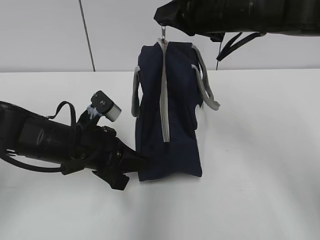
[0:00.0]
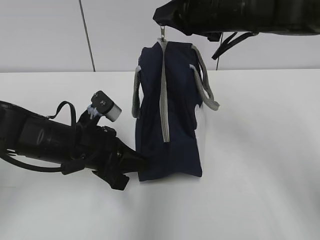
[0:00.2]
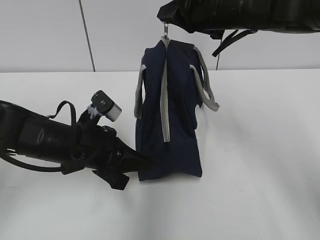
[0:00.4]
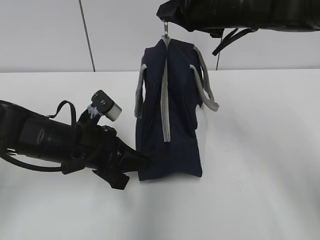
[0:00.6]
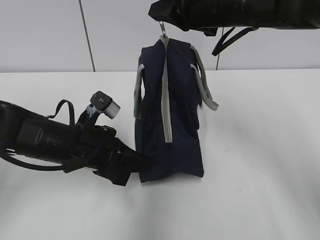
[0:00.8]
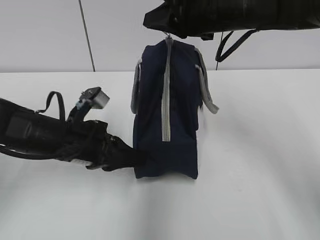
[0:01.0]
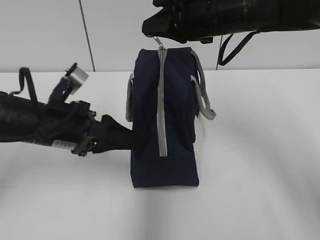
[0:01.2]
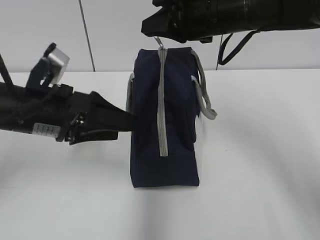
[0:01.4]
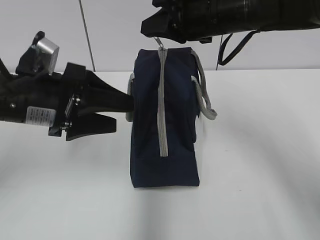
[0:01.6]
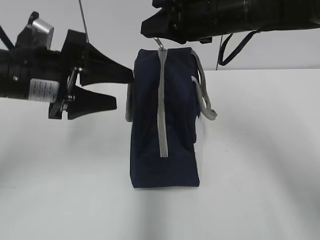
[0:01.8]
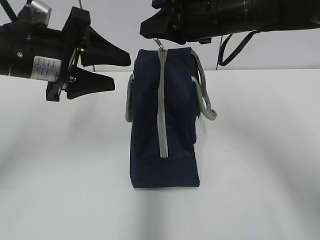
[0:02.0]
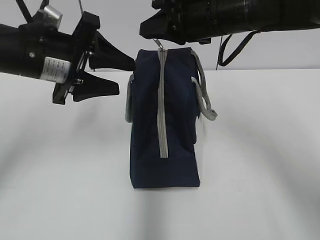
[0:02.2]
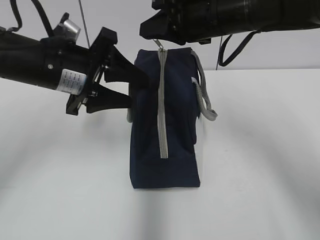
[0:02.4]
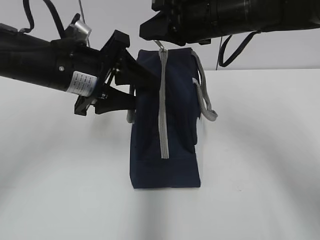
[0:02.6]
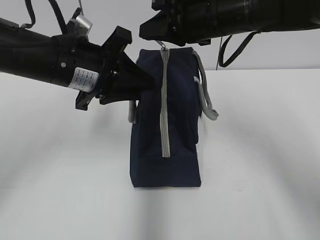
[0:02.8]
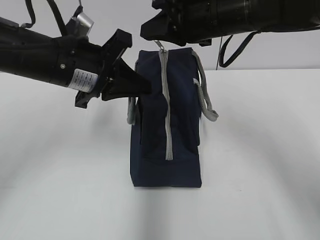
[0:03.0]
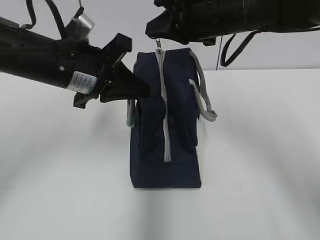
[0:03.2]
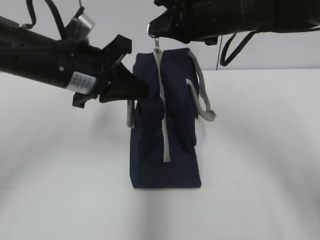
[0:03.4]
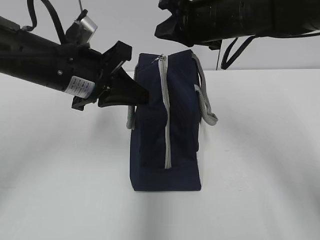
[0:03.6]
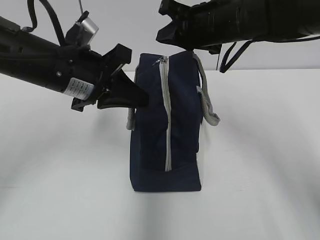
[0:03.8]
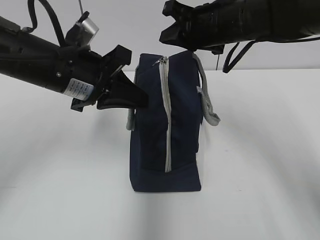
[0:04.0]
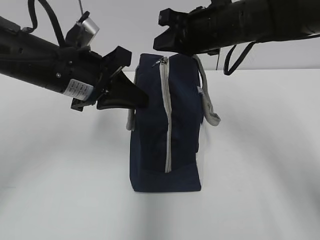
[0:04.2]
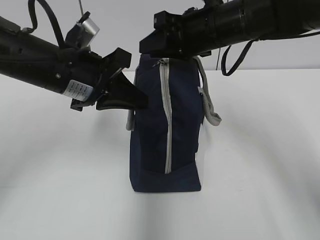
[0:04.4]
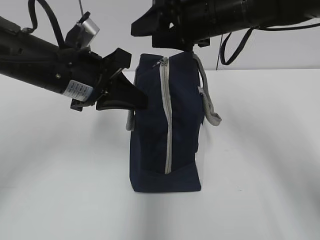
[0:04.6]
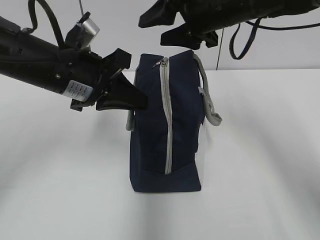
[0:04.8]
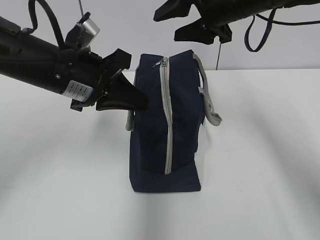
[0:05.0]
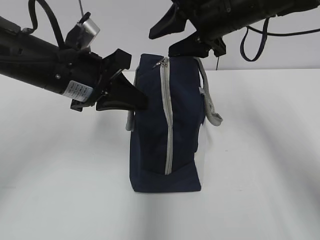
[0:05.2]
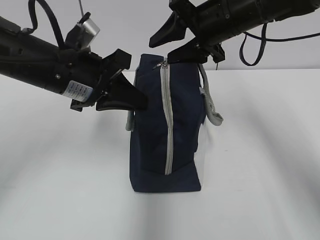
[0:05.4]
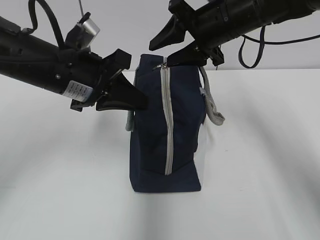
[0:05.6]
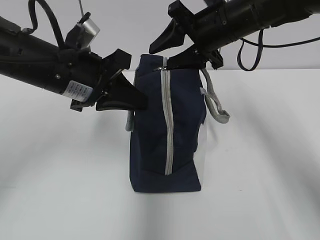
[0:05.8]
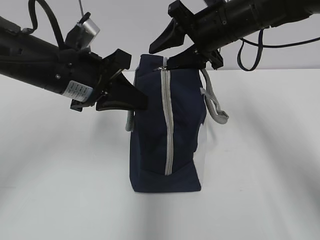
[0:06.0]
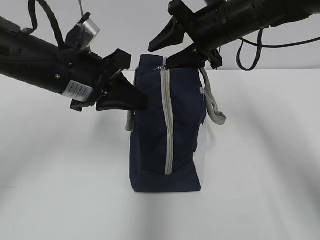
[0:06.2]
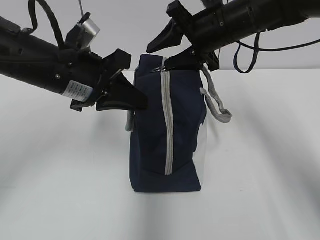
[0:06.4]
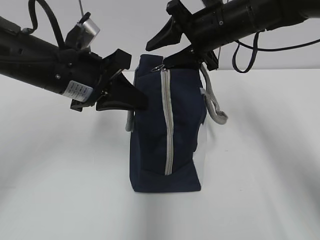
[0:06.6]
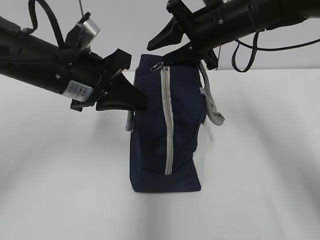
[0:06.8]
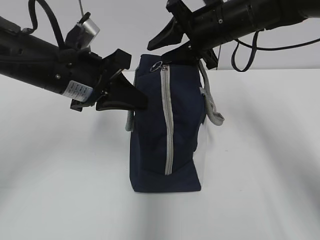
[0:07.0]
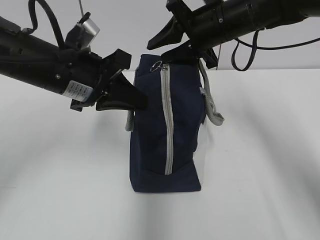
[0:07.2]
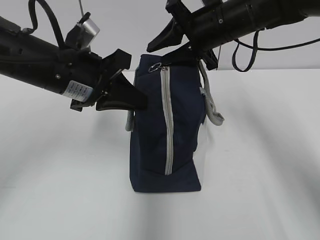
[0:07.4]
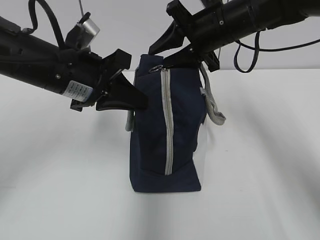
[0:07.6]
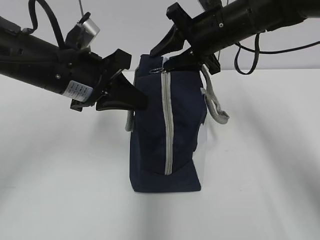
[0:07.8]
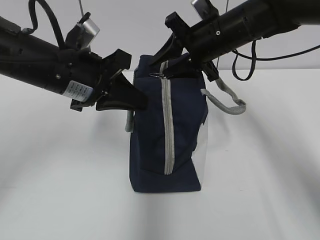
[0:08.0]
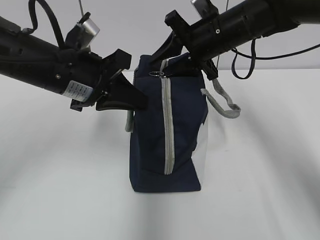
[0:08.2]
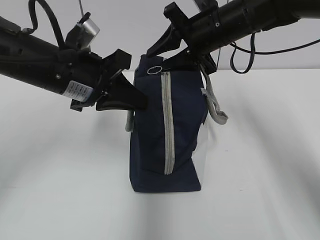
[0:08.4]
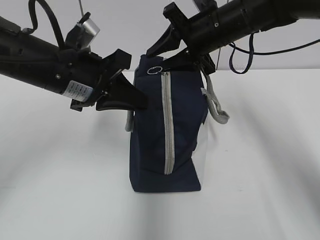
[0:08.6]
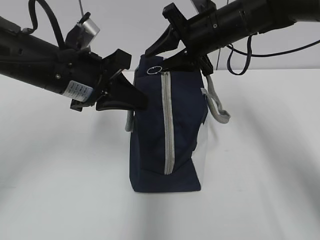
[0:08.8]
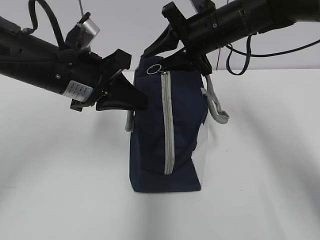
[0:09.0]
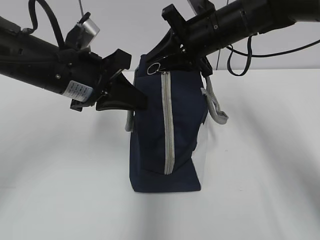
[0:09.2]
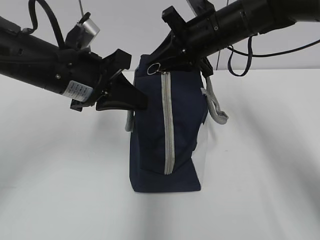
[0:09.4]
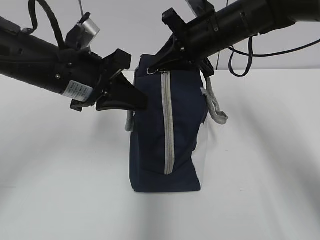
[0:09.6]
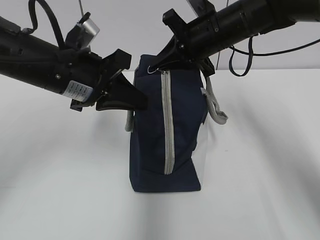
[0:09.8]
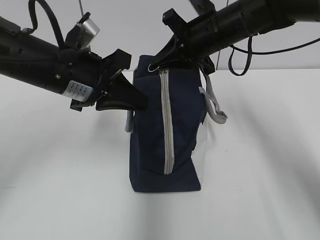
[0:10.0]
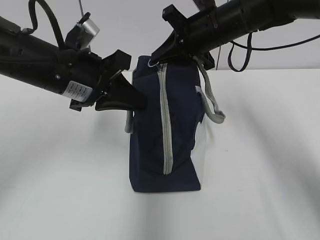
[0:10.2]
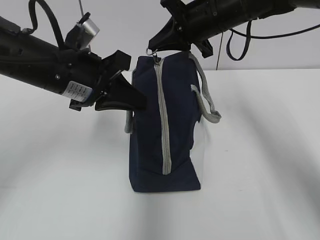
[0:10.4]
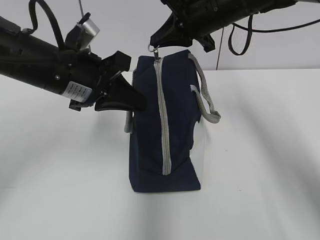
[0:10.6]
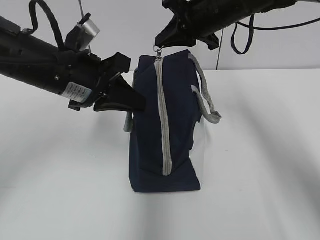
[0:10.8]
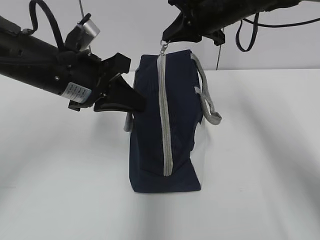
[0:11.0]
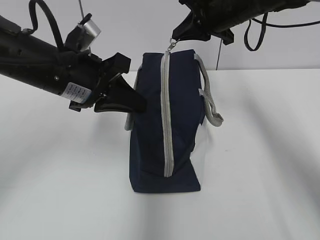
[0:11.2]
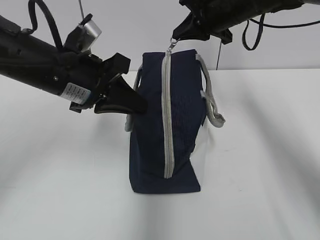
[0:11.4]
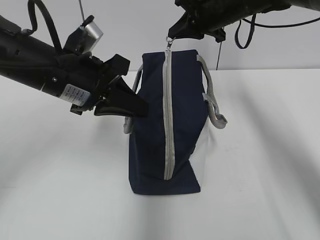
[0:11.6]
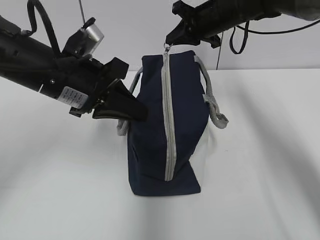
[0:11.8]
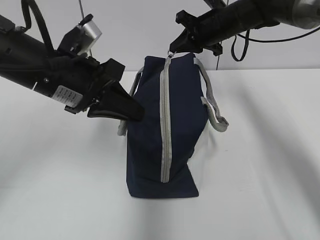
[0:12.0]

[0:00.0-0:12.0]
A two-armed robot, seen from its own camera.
Step, 0:00.0 to 0:06.6: Grab the lunch bag with your left hand.
0:00.0 to 0:01.6: The left gripper travels upward by approximately 10 cm, and opens.
0:01.6 to 0:03.0: The left gripper moves roughly 5 cm, and closes.
0:03.0 to 0:04.4: The grippers move only a little.
0:06.0 to 0:09.0: The grippers stay close to where they were, moving slightly.
0:09.0 to 0:10.4: The right gripper closes its fingers.
0:10.4 to 0:12.0: The right gripper is displaced forward by about 10 cm.

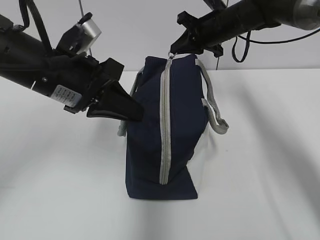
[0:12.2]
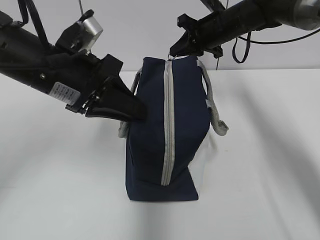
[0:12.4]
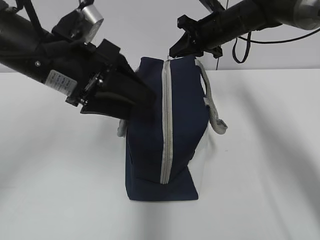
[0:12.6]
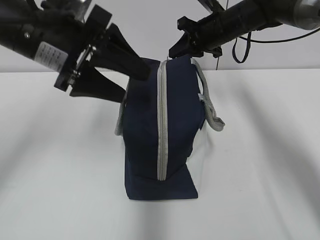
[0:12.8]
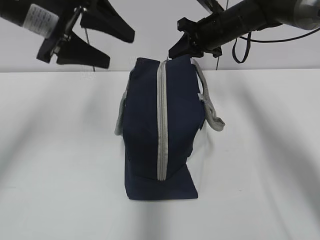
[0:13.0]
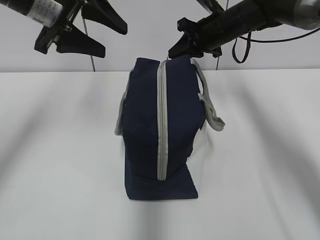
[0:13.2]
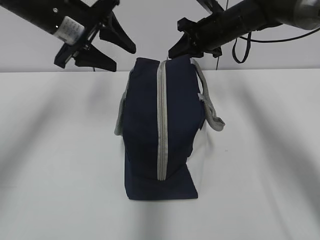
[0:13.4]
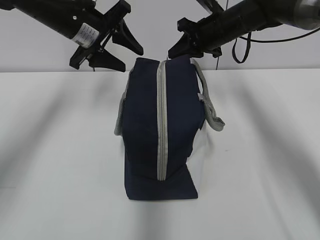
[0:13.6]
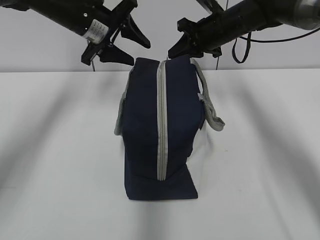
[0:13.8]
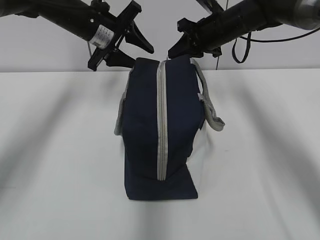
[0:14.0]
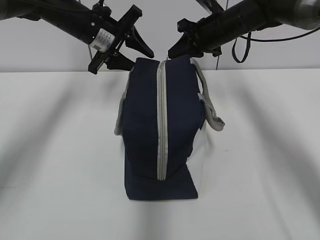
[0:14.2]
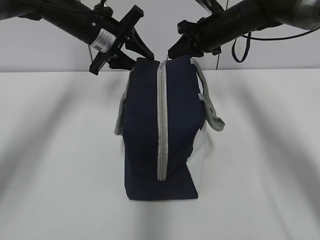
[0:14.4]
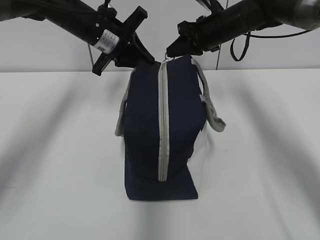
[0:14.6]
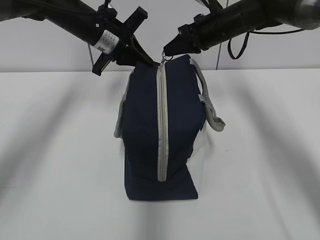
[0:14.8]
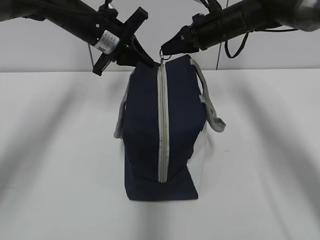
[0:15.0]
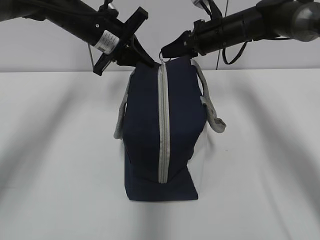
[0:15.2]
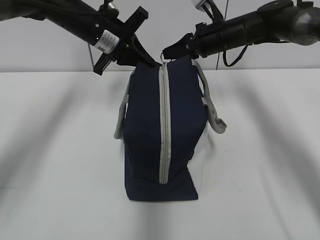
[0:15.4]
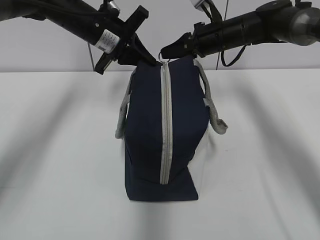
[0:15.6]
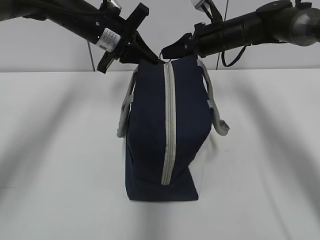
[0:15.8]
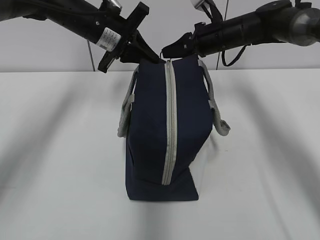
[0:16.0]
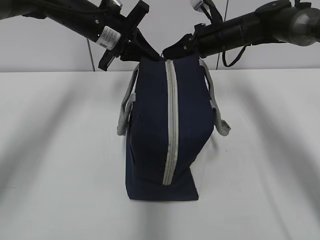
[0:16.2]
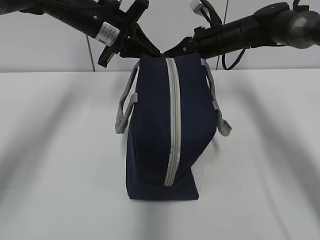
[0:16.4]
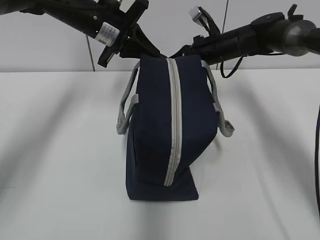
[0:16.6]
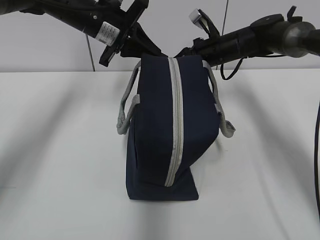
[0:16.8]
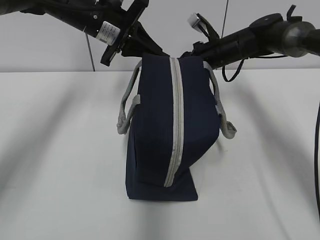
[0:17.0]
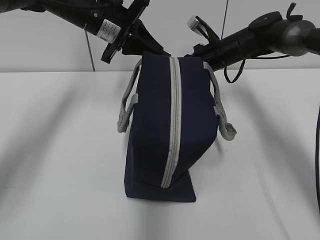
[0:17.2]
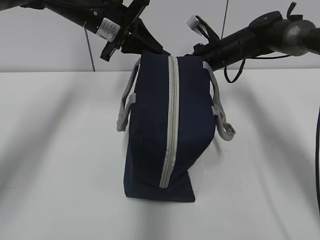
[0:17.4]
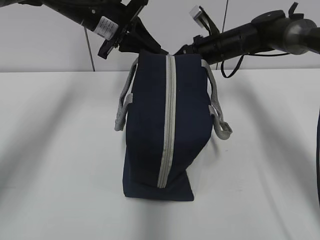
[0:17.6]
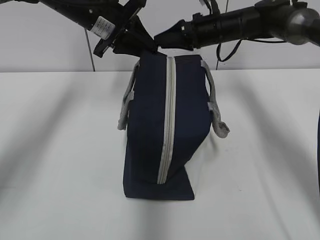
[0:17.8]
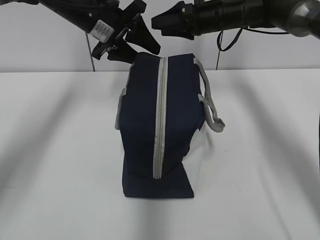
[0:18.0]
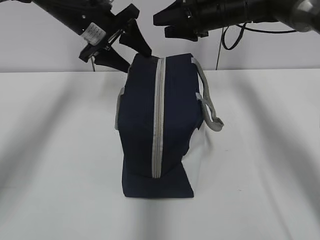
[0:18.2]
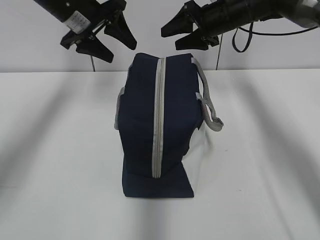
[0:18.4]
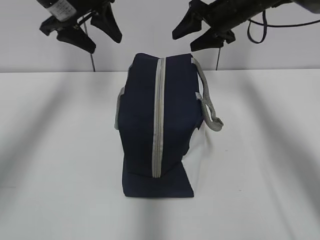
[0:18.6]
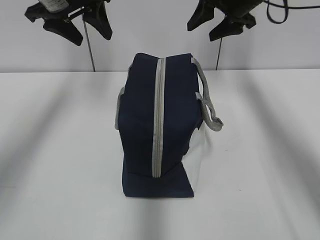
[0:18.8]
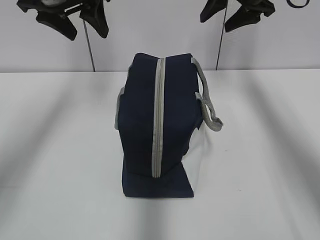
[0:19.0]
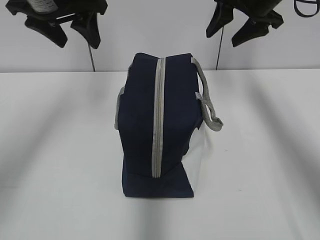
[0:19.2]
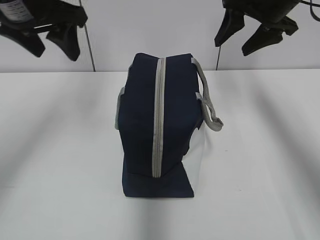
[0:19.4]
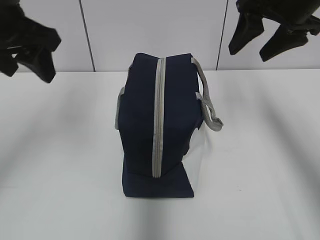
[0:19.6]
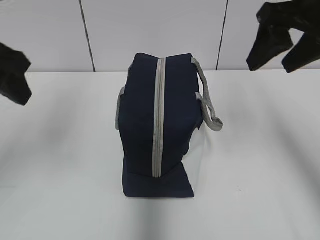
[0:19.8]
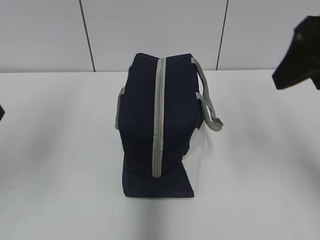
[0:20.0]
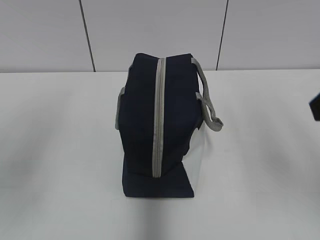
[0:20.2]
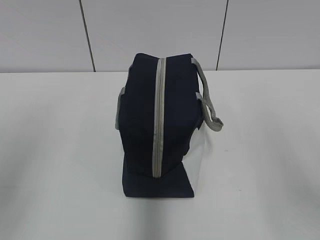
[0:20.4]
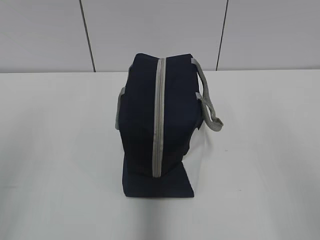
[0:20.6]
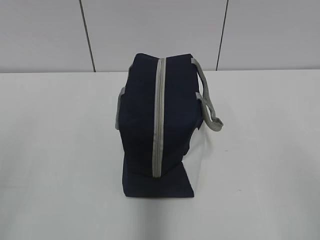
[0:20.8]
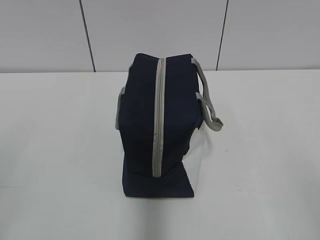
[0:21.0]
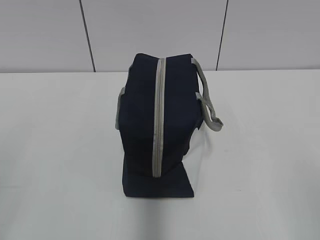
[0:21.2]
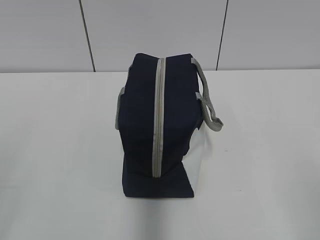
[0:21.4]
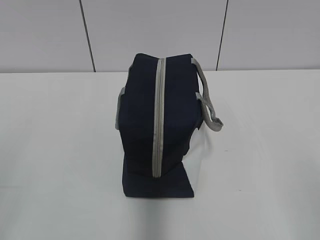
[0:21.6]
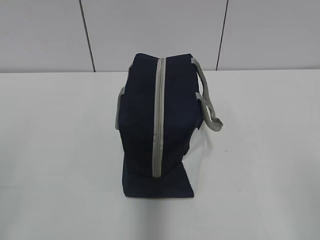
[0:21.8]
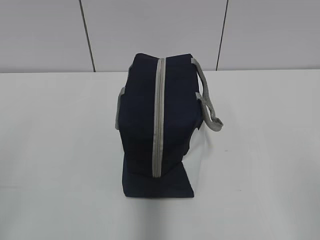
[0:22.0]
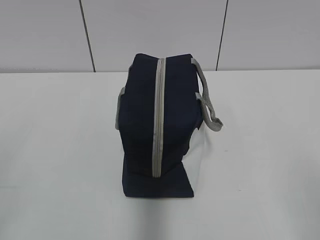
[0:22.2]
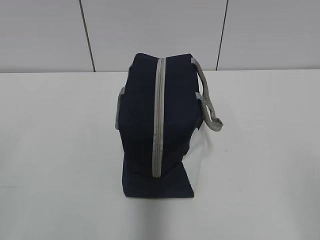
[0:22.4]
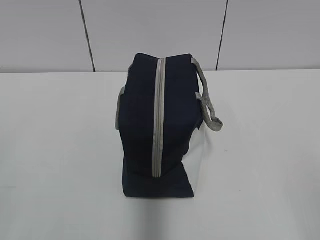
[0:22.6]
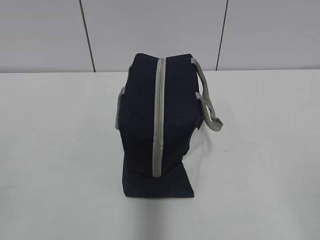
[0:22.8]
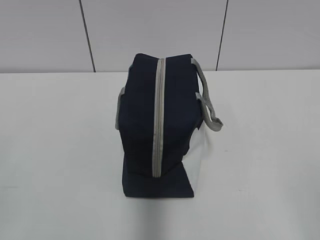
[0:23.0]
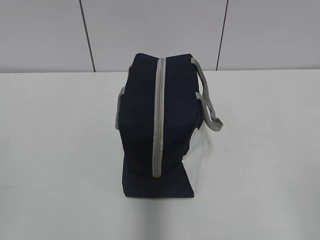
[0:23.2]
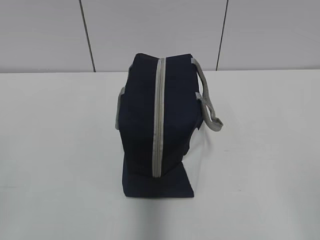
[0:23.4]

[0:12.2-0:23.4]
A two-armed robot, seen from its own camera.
Step, 0:12.2 to 0:17.6: Pull the zipper with your right hand.
0:12.2 to 0:13.8: The left gripper moves forward, about 15 cm, and opens its fingers.
0:13.8 to 0:15.4: The left gripper closes up.
0:15.4 to 0:17.0: There are only small adjustments of the grippers.
0:17.0 to 0:18.6: The left gripper goes roughly 10 cm to the left and upward, and opens up. Meanwhile the right gripper goes about 10 cm upward, and opens its fingers.
0:18.6 to 0:20.2: Both grippers travel together backward, about 30 cm.
0:20.2 to 0:21.8: The grippers both shift backward and downward by approximately 15 cm.
